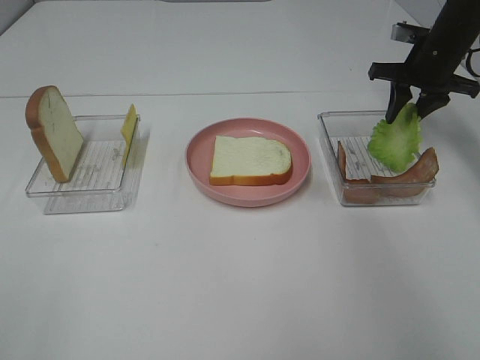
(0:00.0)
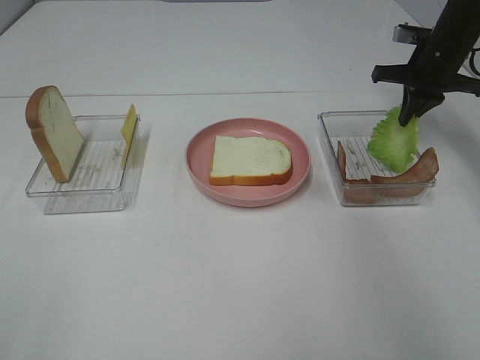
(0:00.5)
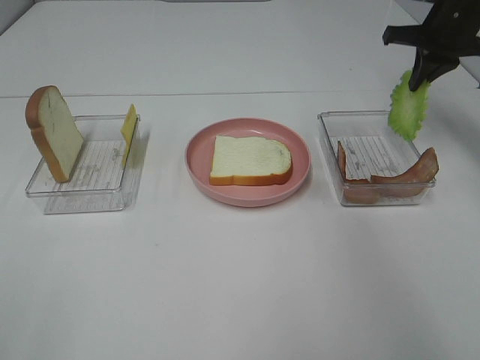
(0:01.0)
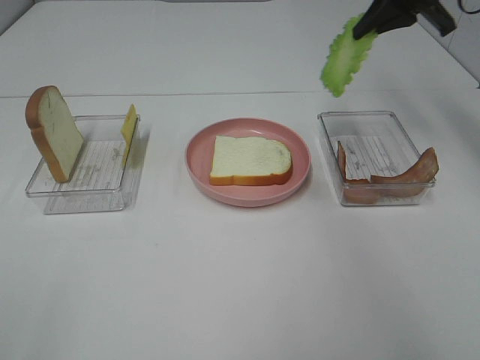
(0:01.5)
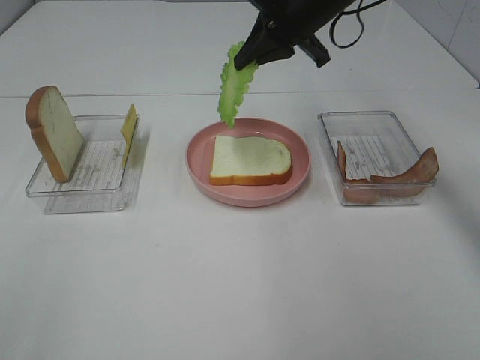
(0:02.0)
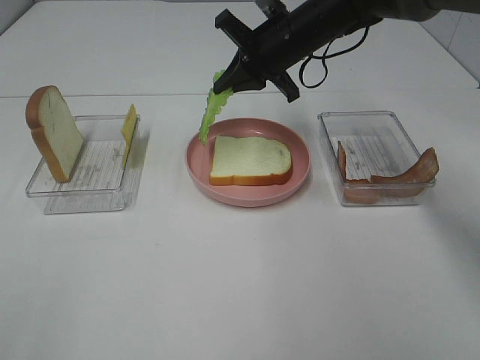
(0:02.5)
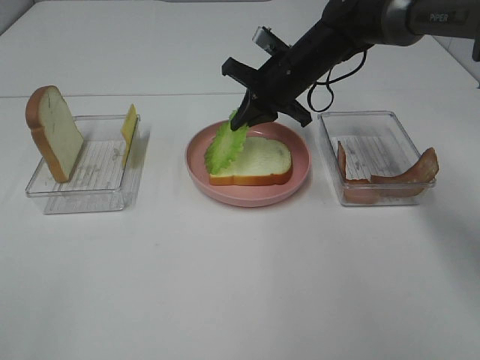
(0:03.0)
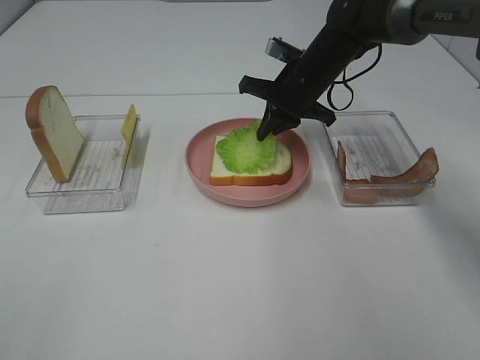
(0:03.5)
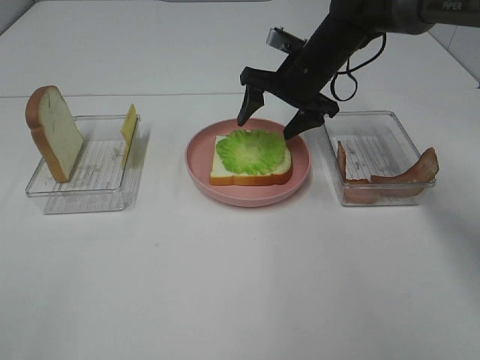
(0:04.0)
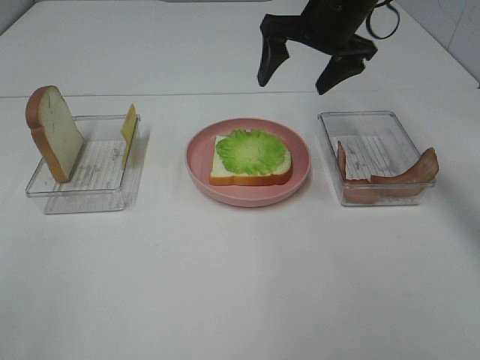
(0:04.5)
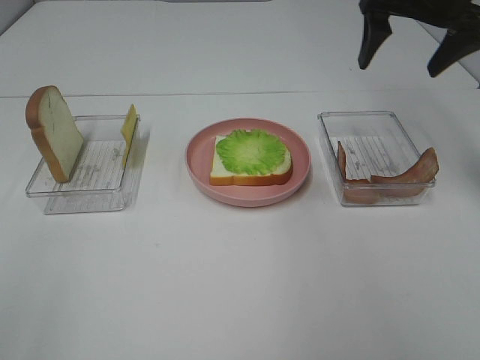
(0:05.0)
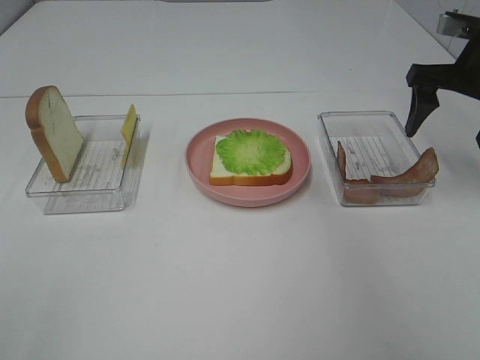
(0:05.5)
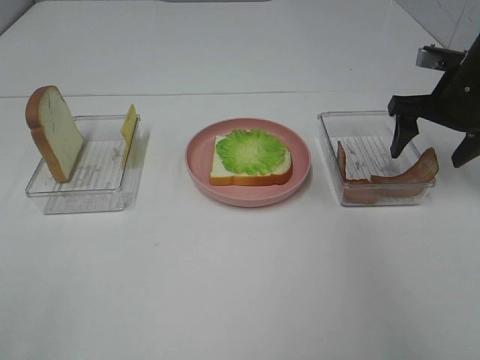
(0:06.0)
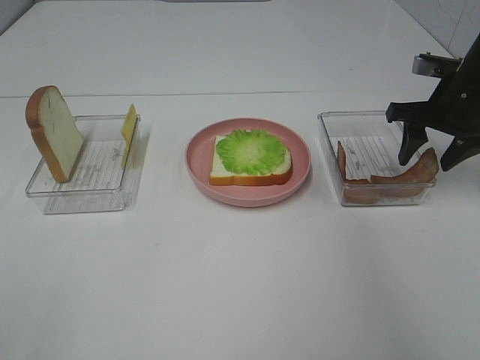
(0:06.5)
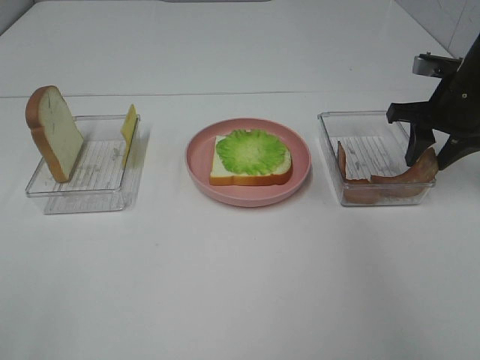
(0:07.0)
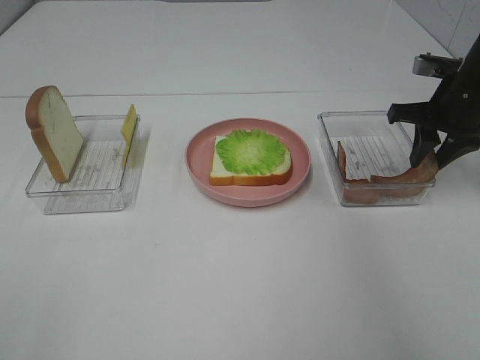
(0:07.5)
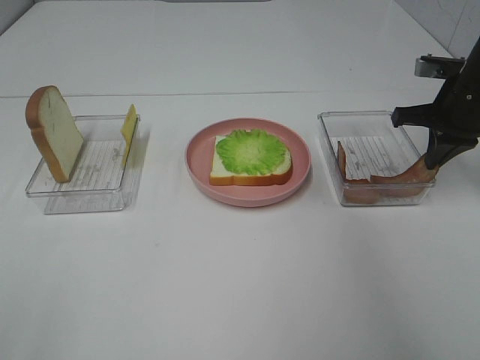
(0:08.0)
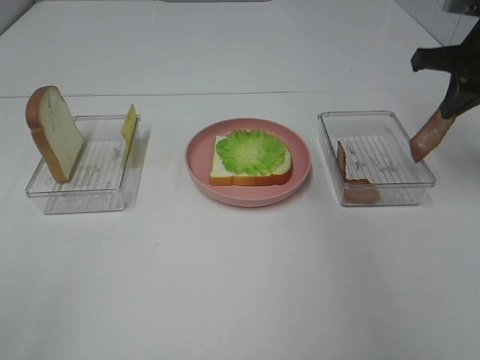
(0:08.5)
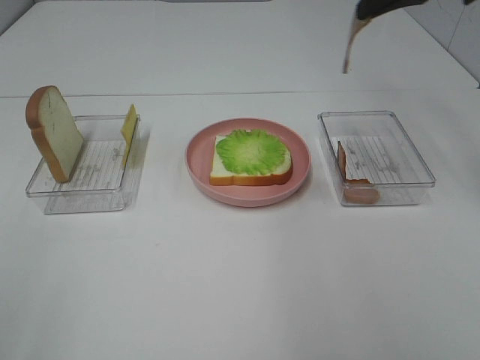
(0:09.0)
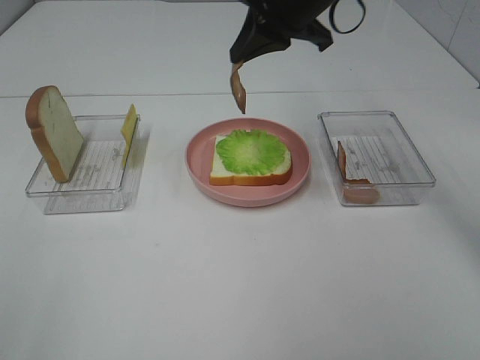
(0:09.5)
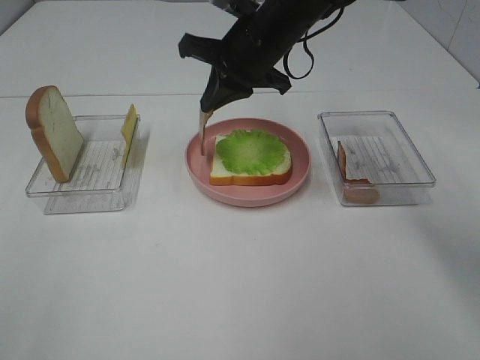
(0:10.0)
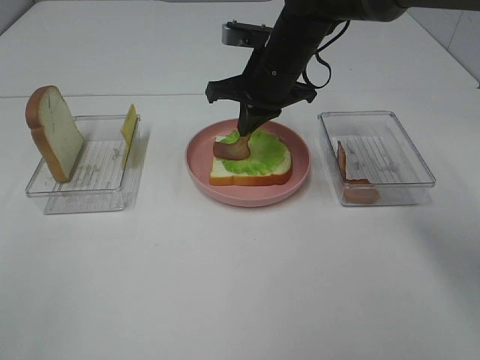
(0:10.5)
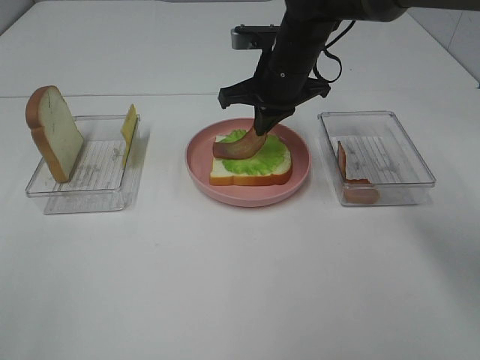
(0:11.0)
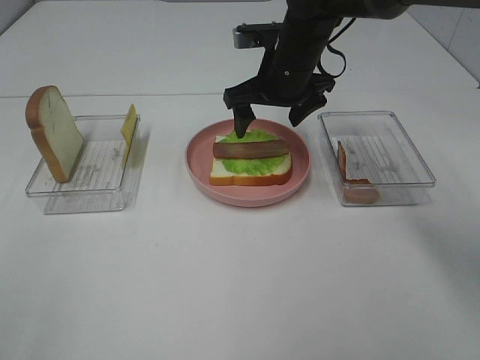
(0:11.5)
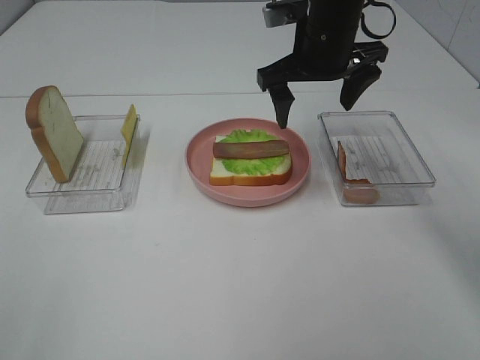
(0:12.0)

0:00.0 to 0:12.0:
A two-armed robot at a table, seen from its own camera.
Task of the whole recording: Make sandwiches.
Step, 0:01.0 to 0:04.0: Right hand:place the lettuce slice on the bread slice.
Step, 0:04.5 to 0:08.0: Right hand:grab the bacon.
Step, 0:08.5 to 0:11.5: Right hand:place bacon on lettuce slice.
0:00.0 to 0:02.0: The right gripper heads to the left and upward, covering about 20 cm, and closes its fingers.
0:02.0 to 0:04.0: The right gripper travels downward by roughly 10 cm, and opens its fingers.
0:04.0 to 0:06.0: The right gripper shifts some 20 cm to the right and backward.
0:06.0 to 0:08.0: The right gripper closes its fingers.
0:08.0 to 0:10.0: The right gripper moves to the left, approximately 25 cm.
0:10.0 to 0:12.0: The right gripper heads to the right, covering roughly 5 cm, and opens its fingers.

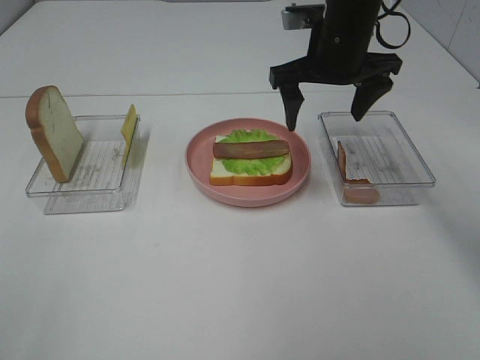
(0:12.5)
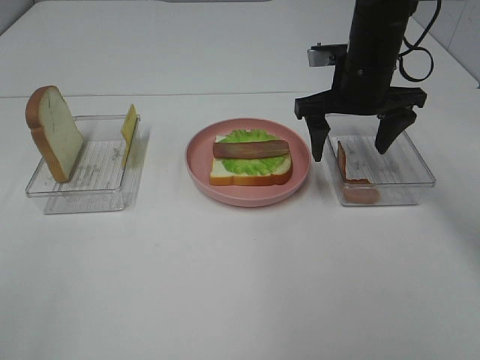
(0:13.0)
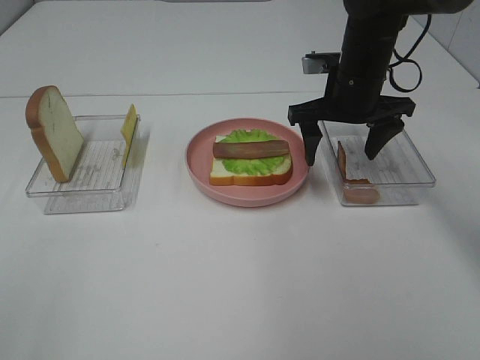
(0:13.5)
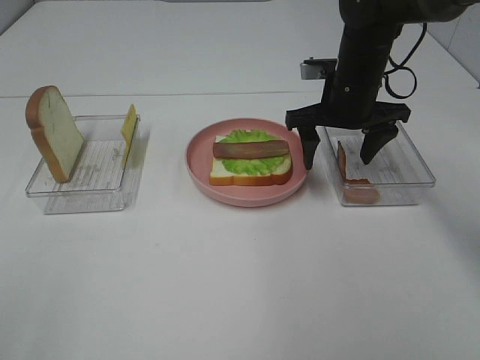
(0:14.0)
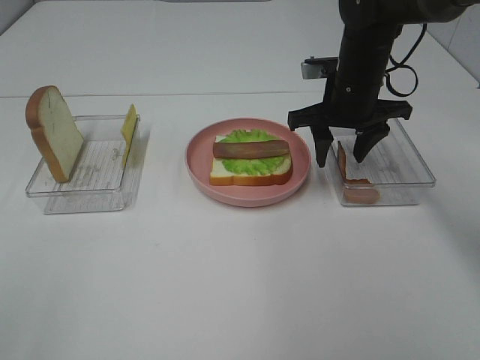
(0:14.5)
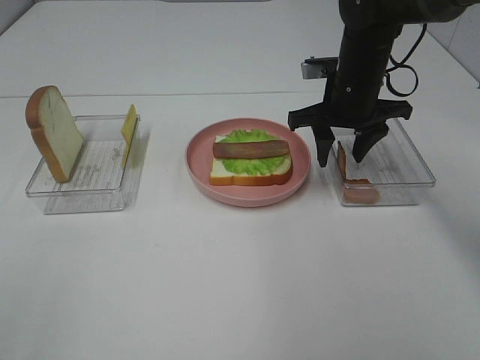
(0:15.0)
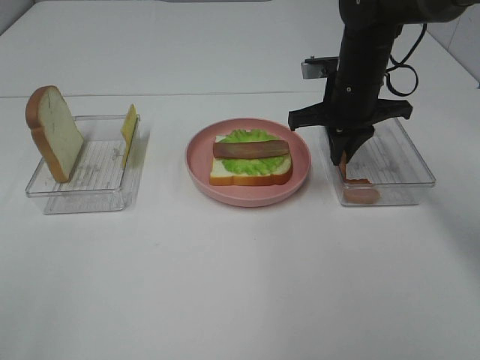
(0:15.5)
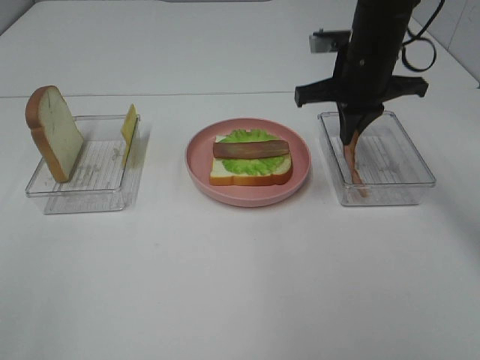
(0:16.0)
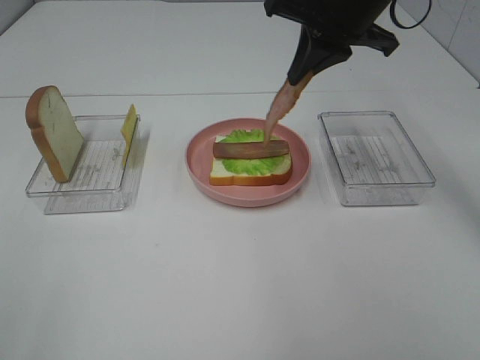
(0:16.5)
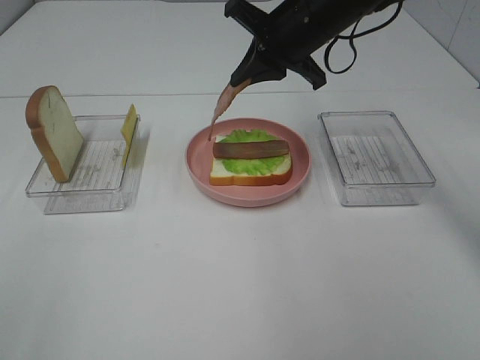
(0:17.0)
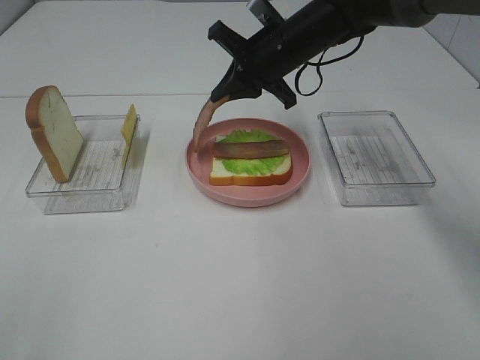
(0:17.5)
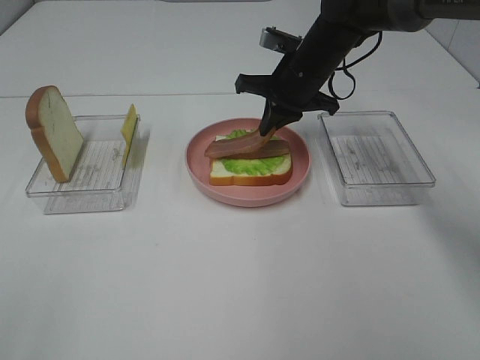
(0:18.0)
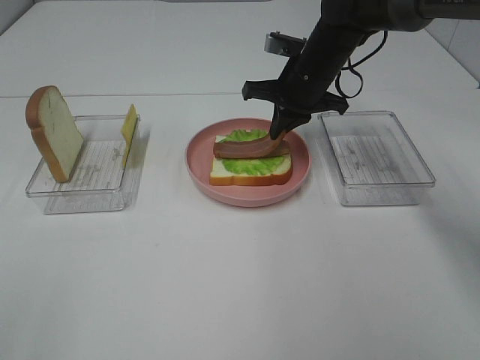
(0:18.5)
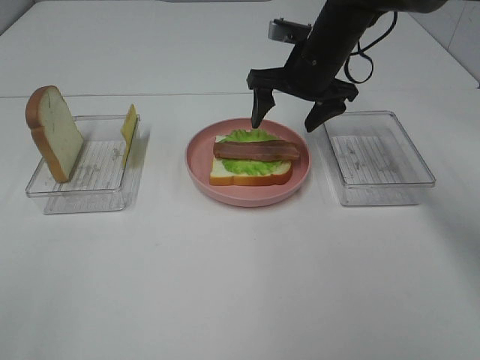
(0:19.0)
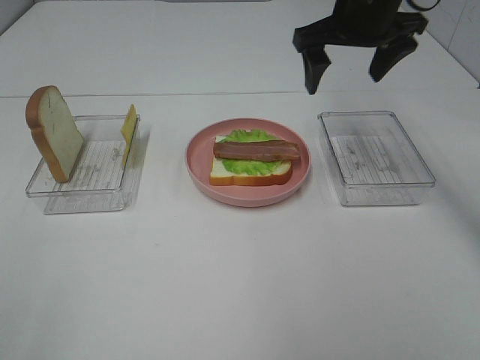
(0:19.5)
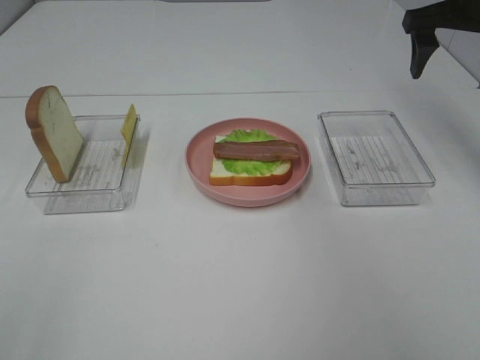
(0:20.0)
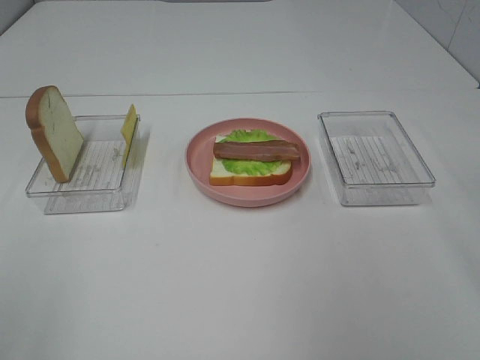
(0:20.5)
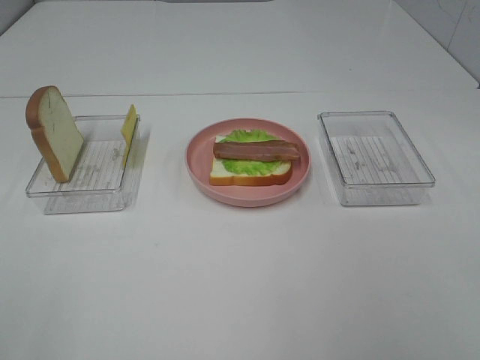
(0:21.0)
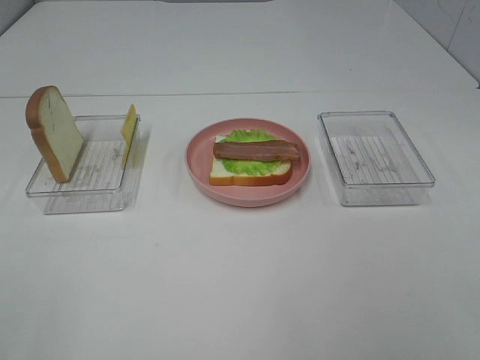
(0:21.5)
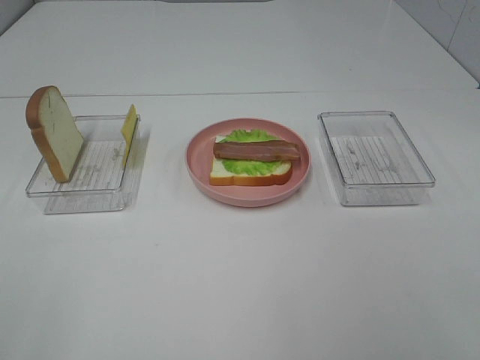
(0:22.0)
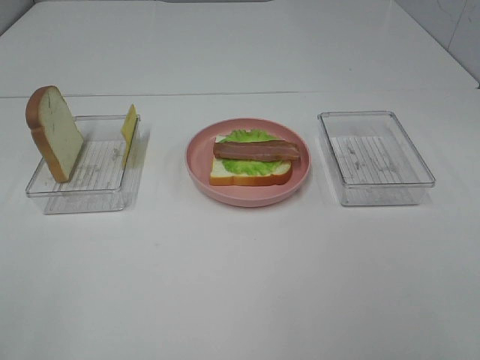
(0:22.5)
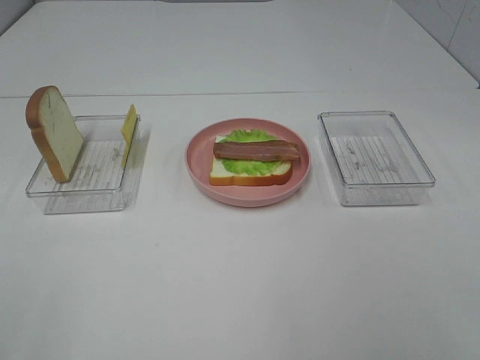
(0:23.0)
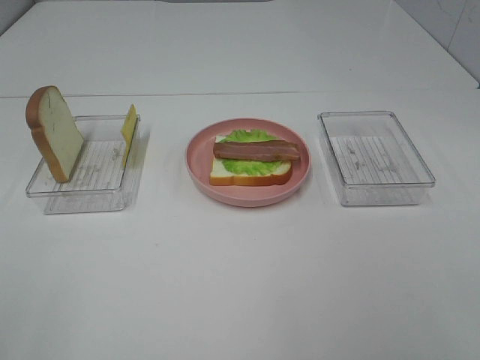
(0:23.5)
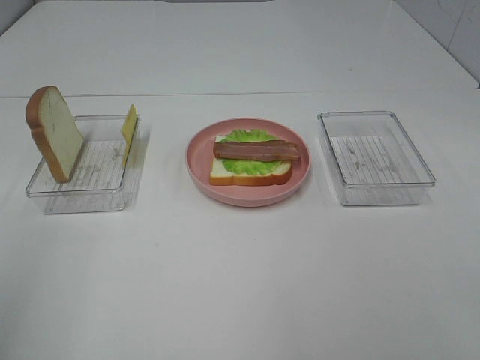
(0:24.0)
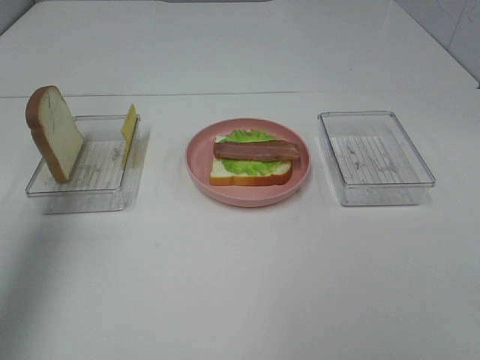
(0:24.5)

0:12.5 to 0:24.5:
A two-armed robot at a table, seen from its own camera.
Task of the whole recording: Make sandwiches.
Step, 0:12.5 to 0:15.5: Right hand:grab the bacon.
Step, 0:16.0 to 0:19.0: Right hand:place bacon on bacon.
0:12.5 to 0:14.5: The right gripper heads downward, covering about 5 cm, and closes.
0:14.5 to 0:16.5: The right gripper heads upward, covering some 10 cm, and closes up.
0:16.5 to 0:18.5: The right gripper goes approximately 15 cm downward and forward.
0:18.5 to 0:20.5: The right gripper goes about 35 cm backward, to the right and upward, and opens up.
0:22.5 to 0:24.5: The left gripper is displaced forward and upward by roughly 30 cm.

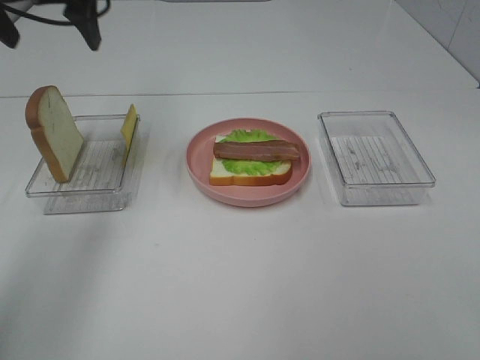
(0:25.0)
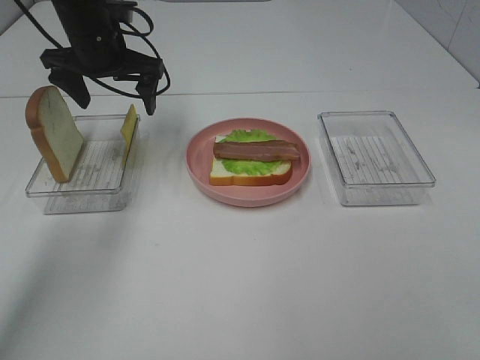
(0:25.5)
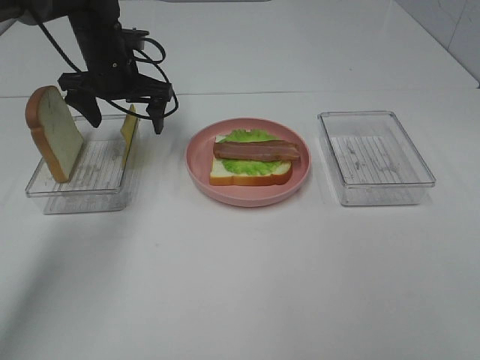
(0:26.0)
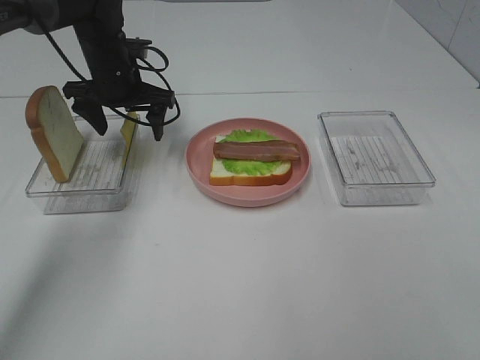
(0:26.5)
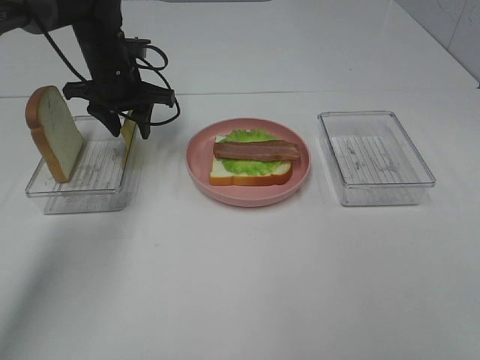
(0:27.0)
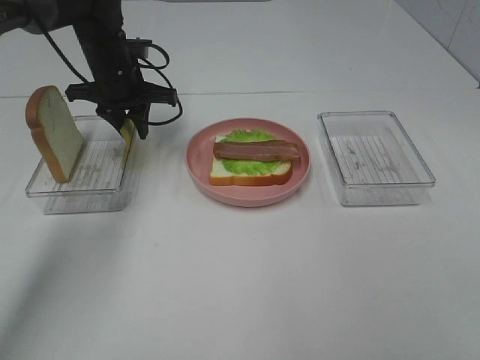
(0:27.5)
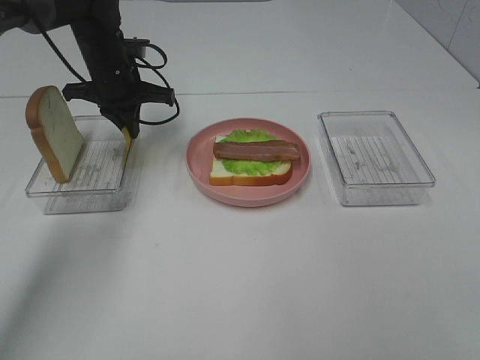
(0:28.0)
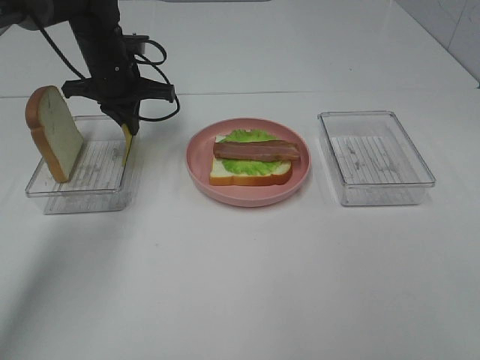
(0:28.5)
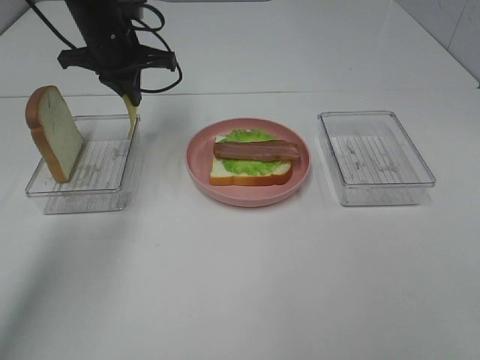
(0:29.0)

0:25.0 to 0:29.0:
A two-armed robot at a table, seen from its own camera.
Task of the whole recording: Make sandwiches.
Step, 0:25.0 to 0:28.0: Left hand:grab the cheese slice.
0:25.0 to 0:27.0: The left gripper moves downward and forward, approximately 20 cm, and closes up.
0:27.0 to 0:29.0: The left gripper heads upward, covering about 5 cm, and closes.
